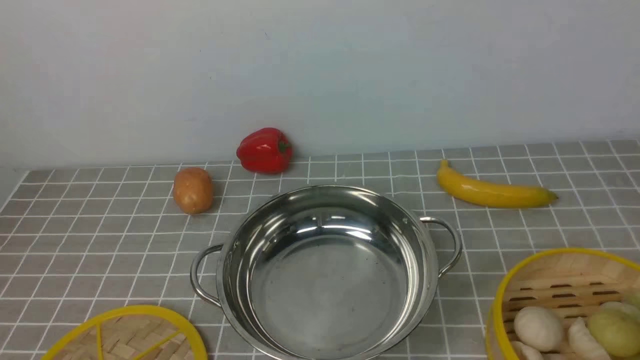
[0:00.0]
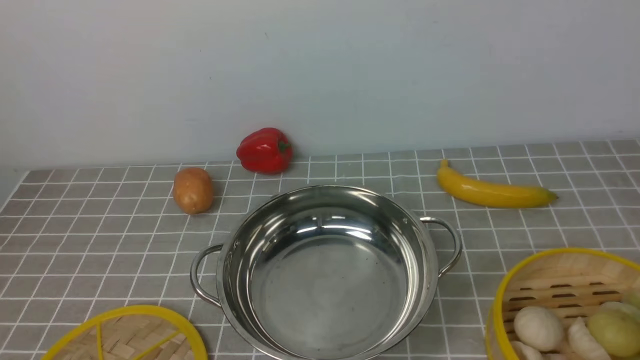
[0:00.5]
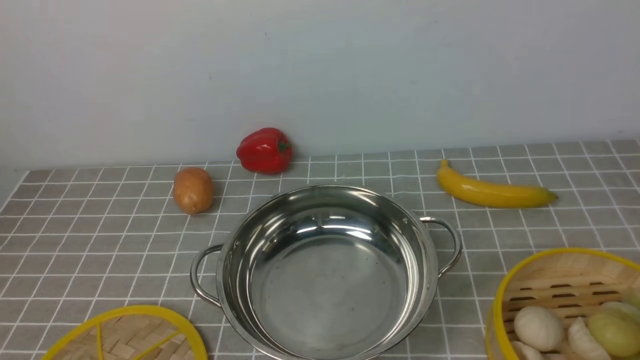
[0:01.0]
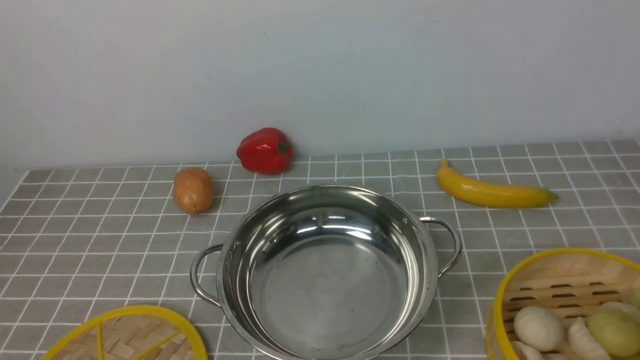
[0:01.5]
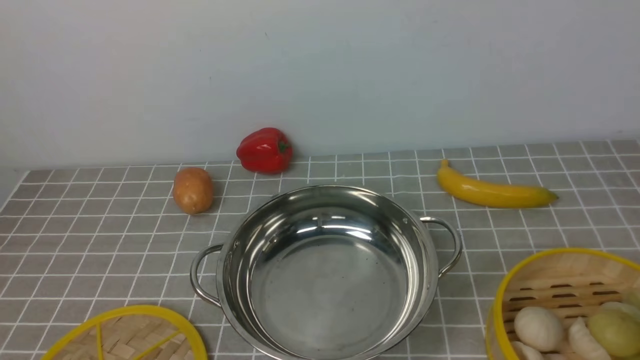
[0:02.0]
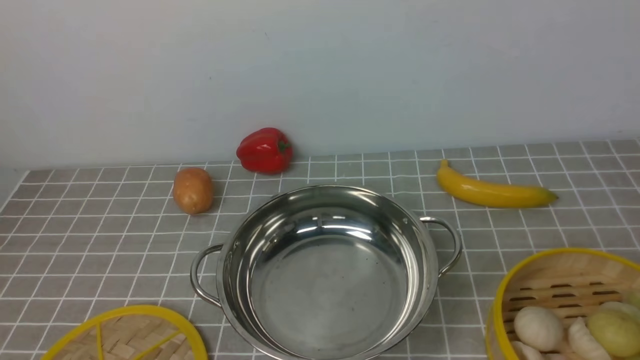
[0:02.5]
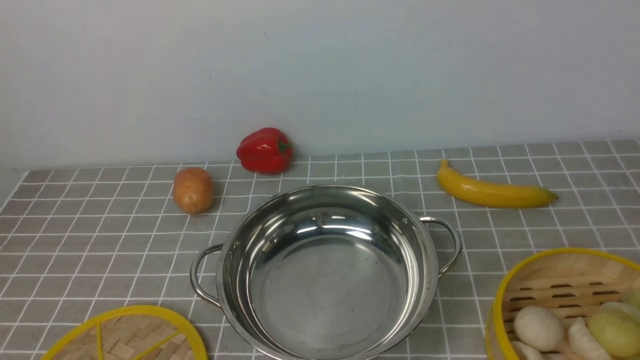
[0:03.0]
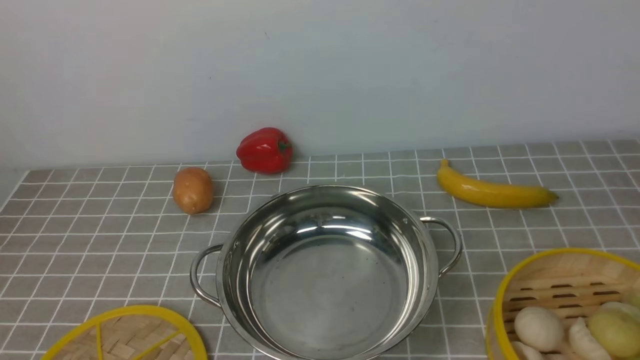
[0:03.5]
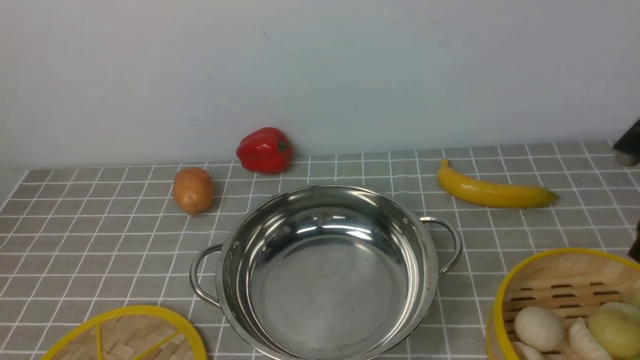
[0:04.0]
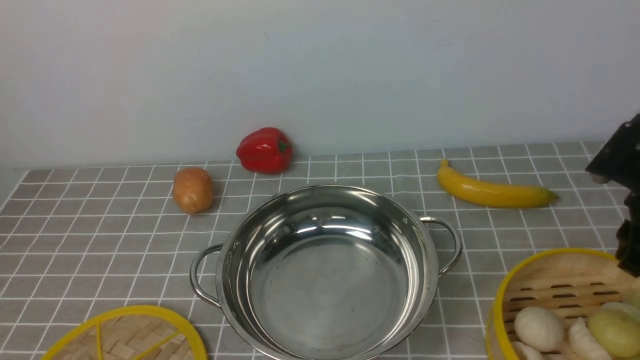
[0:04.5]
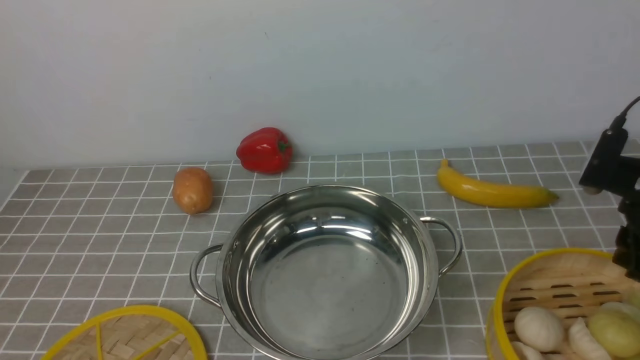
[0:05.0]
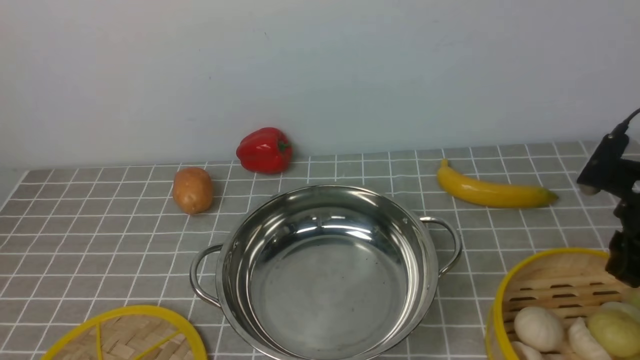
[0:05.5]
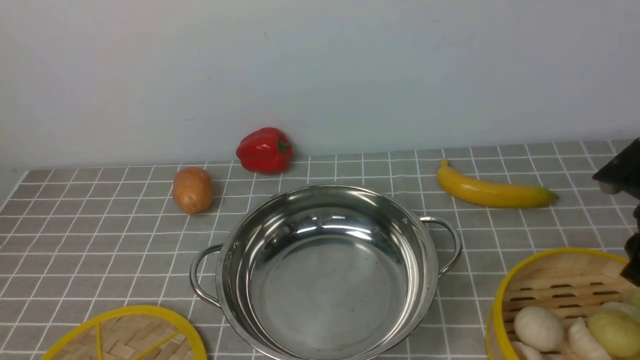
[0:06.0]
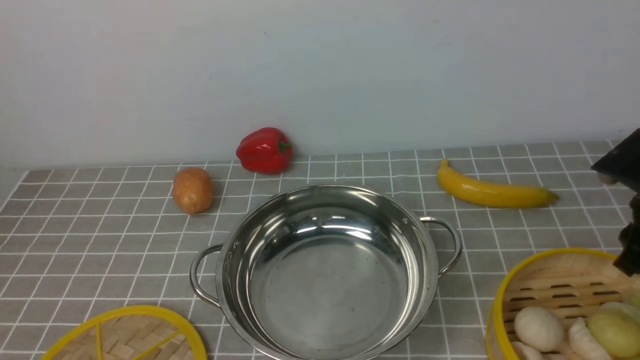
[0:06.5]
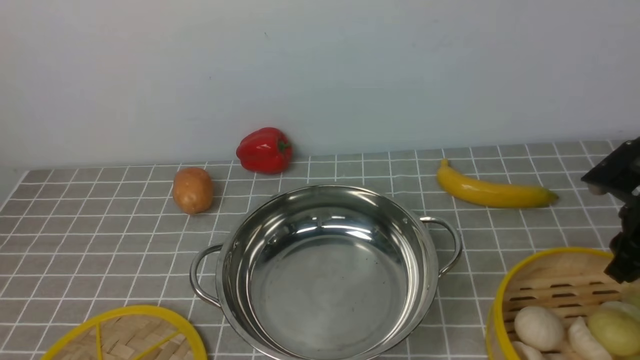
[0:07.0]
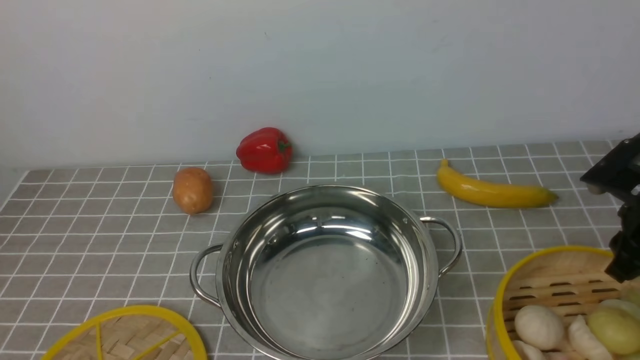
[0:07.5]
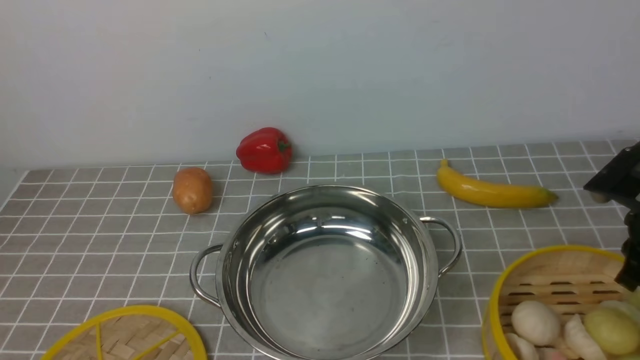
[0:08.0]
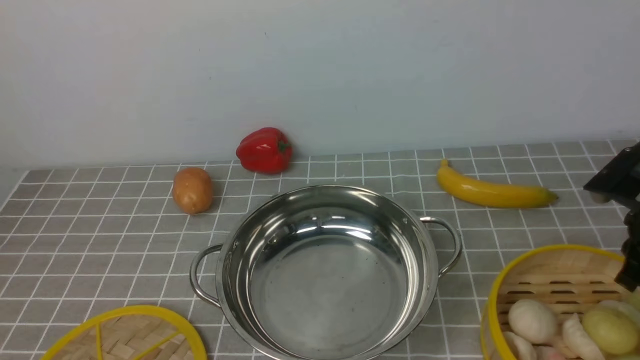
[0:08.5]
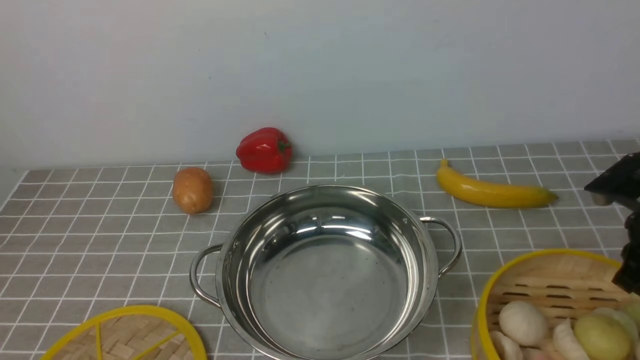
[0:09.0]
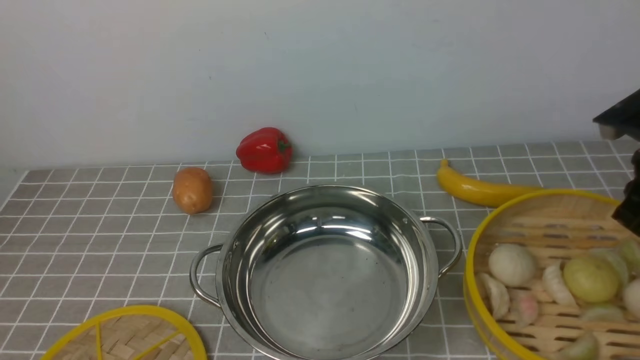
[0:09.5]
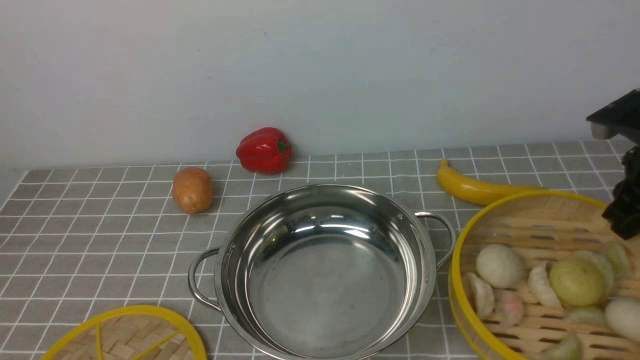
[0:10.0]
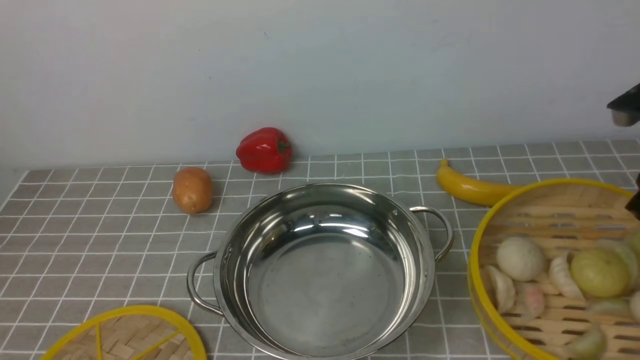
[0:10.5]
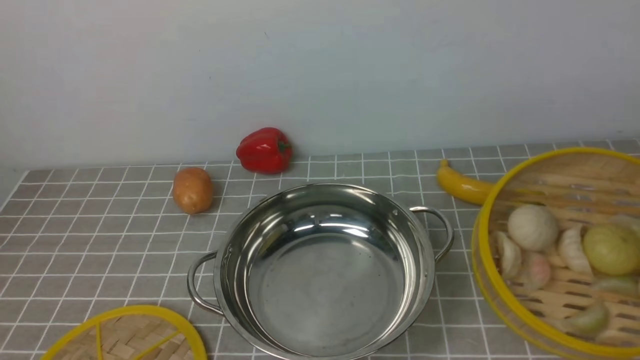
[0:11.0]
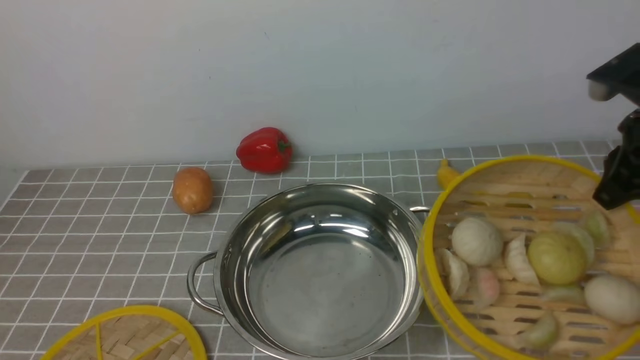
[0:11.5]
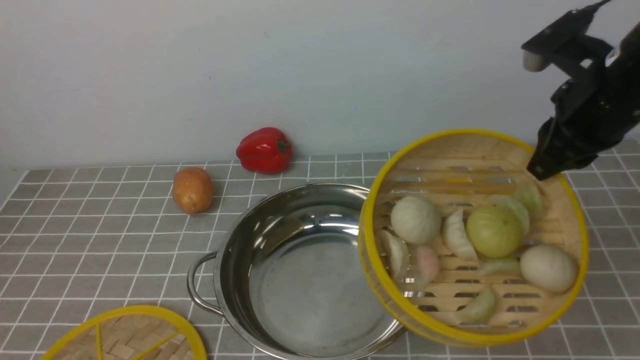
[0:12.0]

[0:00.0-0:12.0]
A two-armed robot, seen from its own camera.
Task of the whole recording: place the steamer in the pot on the grey tablecloth, and put the lid on the steamer.
Step, 0:00.0 to 0:09.0: use the right arm to lift the steamer closest to it.
0:04.0 to 0:06.0: The right gripper is displaced downward by roughly 5 cm.
0:06.0 to 0:08.0: The right gripper closes.
0:08.0 to 0:10.0: The right gripper shifts approximately 5 cm upward.
0:10.0 to 0:12.0: The right gripper shifts roughly 10 cm to the left and upward.

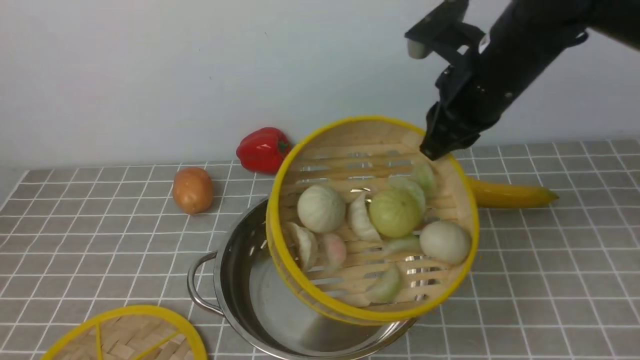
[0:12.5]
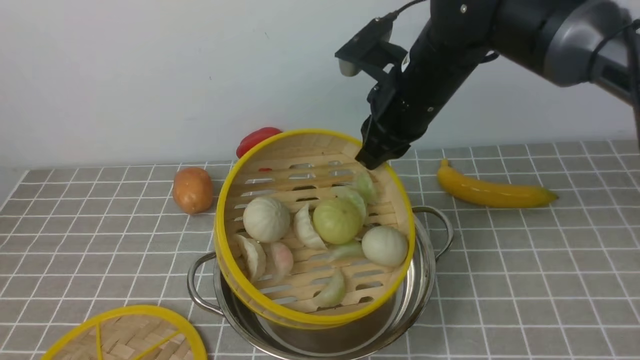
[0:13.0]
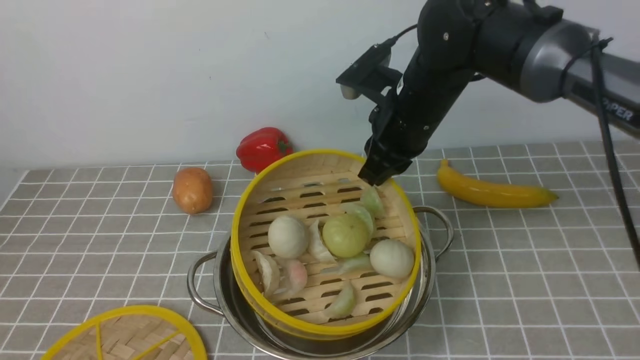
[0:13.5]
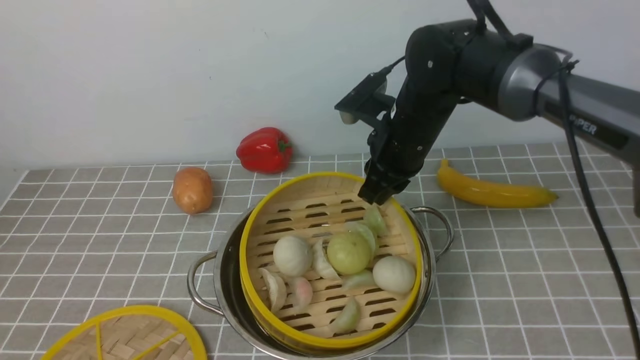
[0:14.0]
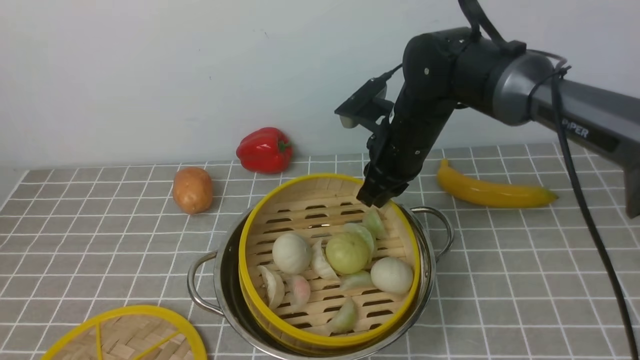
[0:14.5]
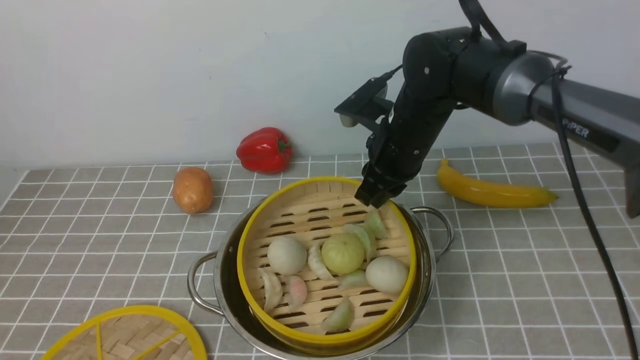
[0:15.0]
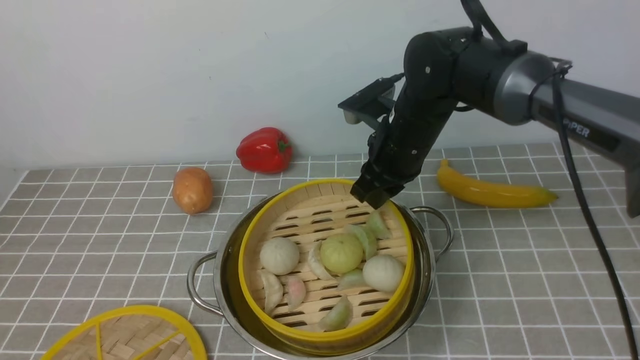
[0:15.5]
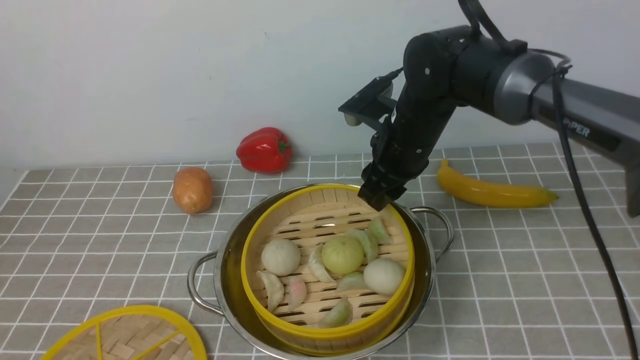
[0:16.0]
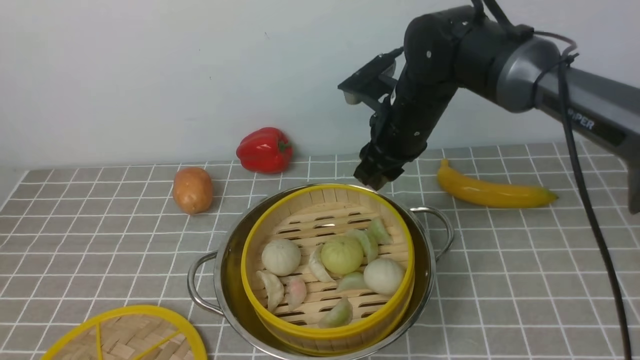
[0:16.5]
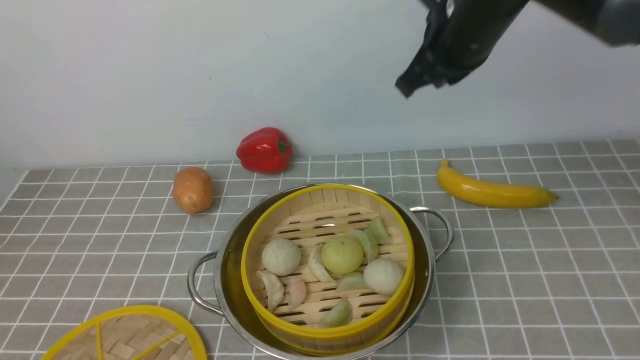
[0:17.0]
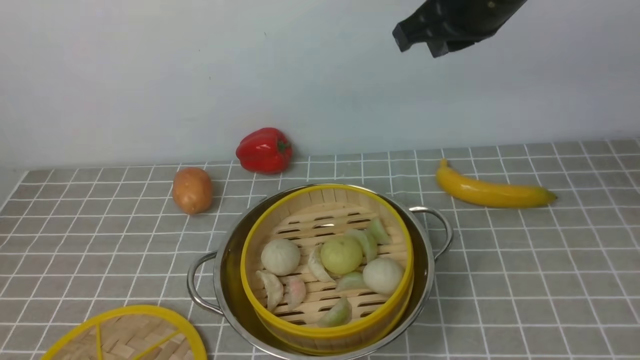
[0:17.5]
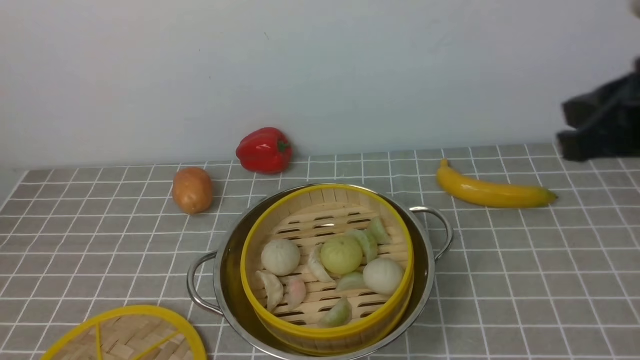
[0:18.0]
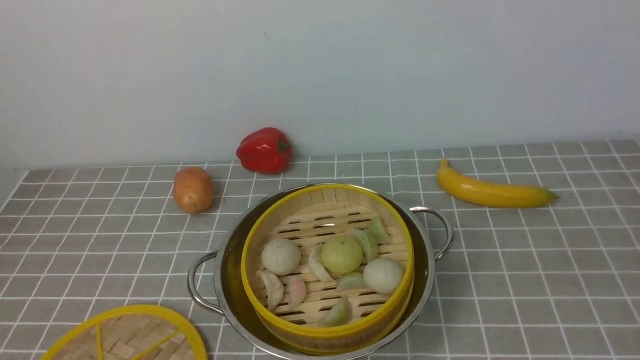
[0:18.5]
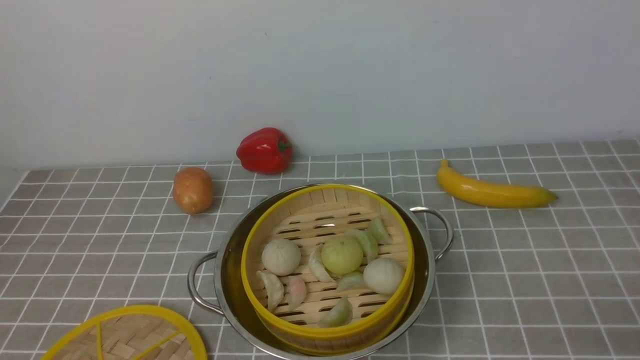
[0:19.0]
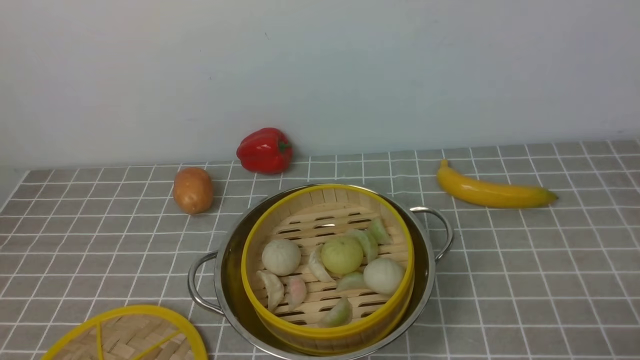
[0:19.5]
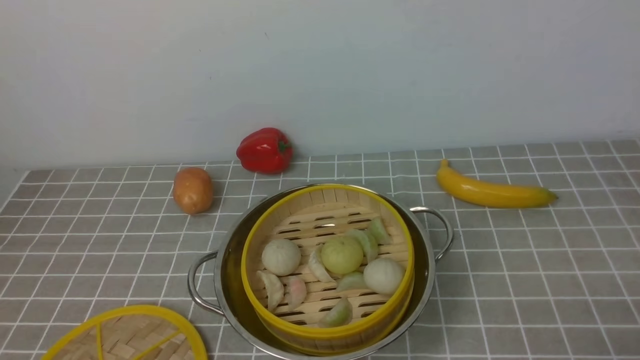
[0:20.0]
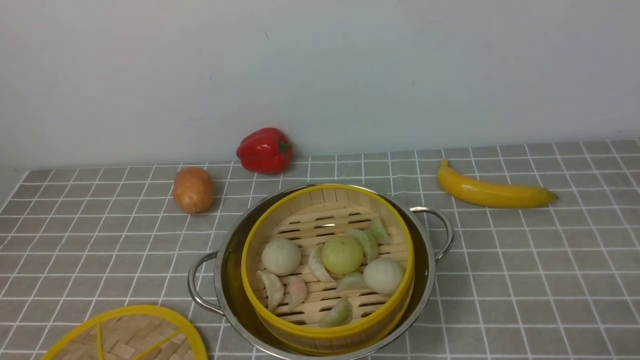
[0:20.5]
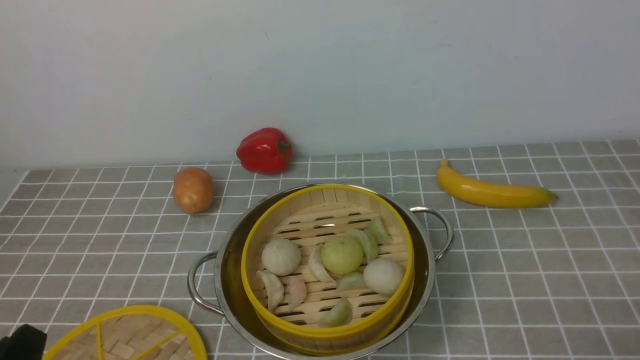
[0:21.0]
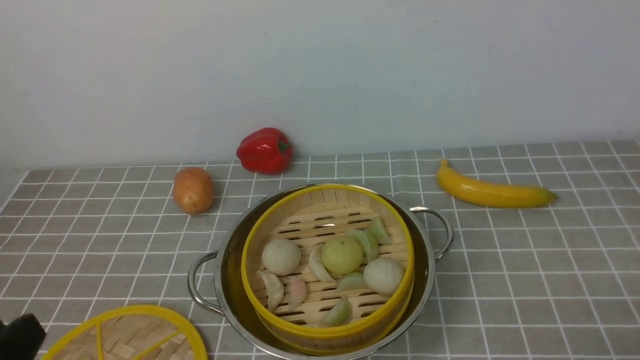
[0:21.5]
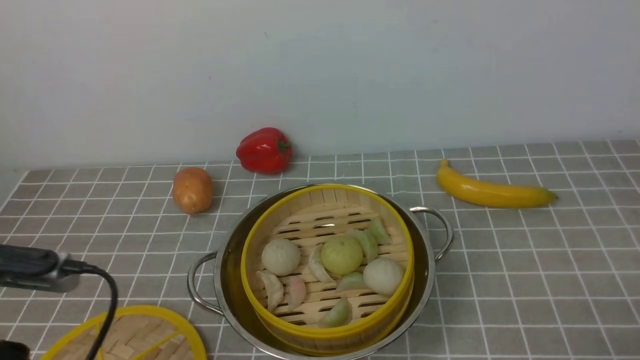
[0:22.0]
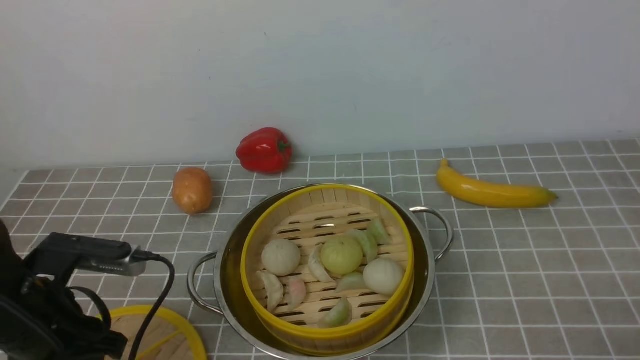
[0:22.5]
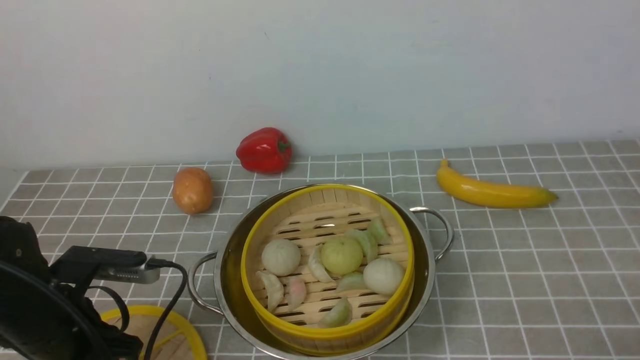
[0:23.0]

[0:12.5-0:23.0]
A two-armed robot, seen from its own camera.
Task of the whole recording: place the steamer in the pot on the grey tablecloth, and put the lid on the steamer.
Step, 0:12.5 to 0:16.0: use the right arm to put the steamer into the iron steamer pot in the middle.
0:12.5 to 0:14.5: The right gripper heads downward and to the left, covering approximately 10 cm.
0:14.5 to 0:16.5: The right gripper opens its fingers.
0:16.5 to 0:19.0: The right gripper heads backward and to the right, covering roughly 40 cm, and closes up.
0:21.0 to 0:23.0: The left gripper heads forward, covering about 15 cm.
